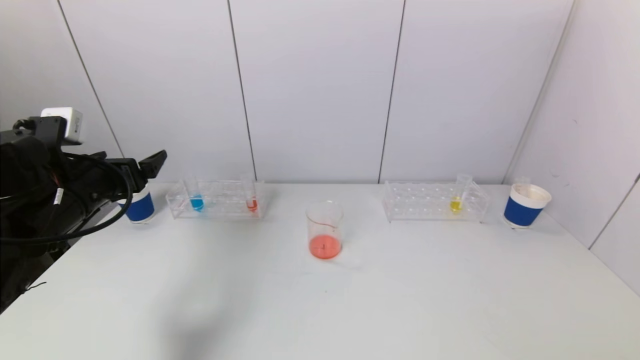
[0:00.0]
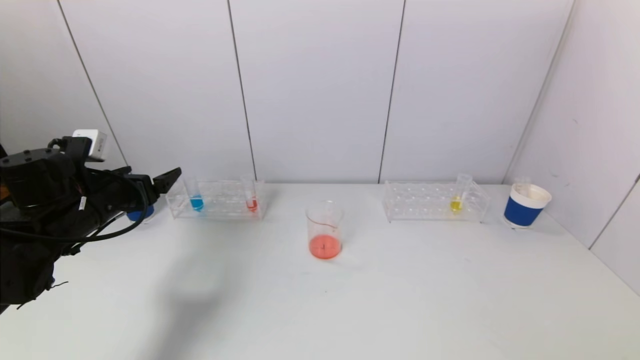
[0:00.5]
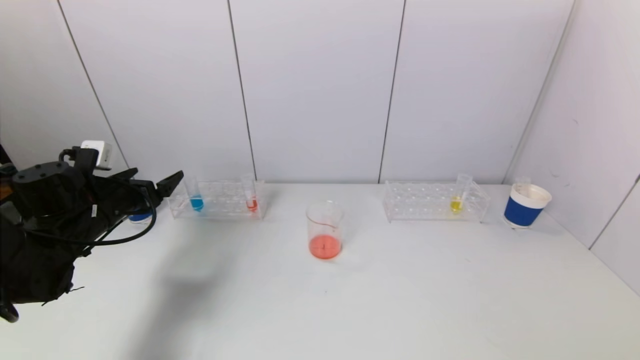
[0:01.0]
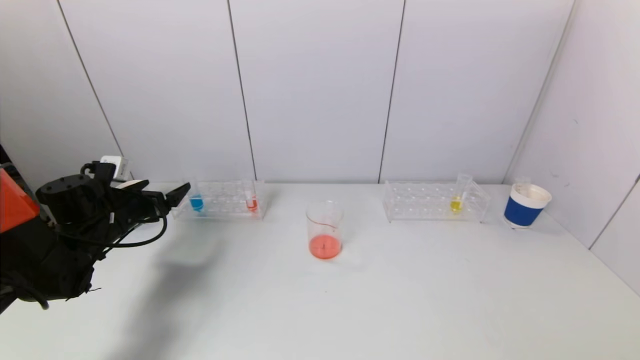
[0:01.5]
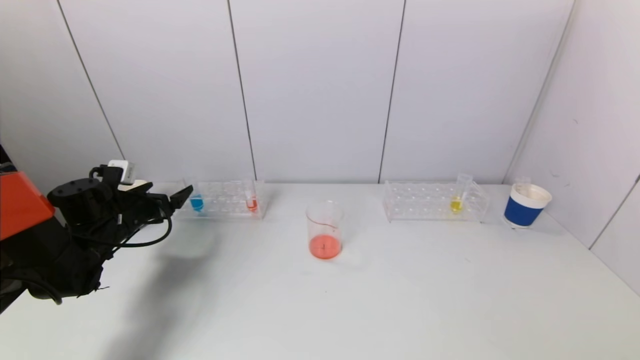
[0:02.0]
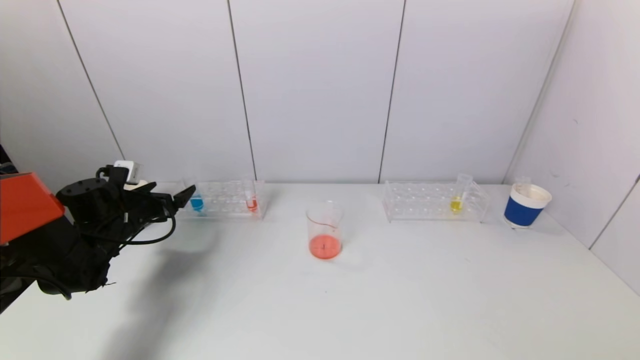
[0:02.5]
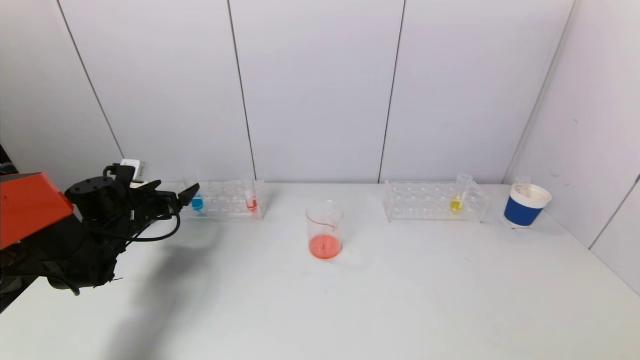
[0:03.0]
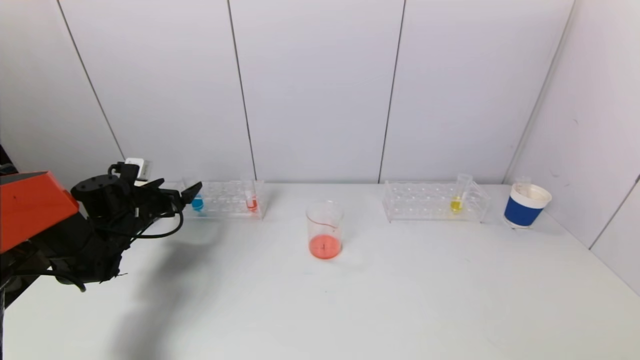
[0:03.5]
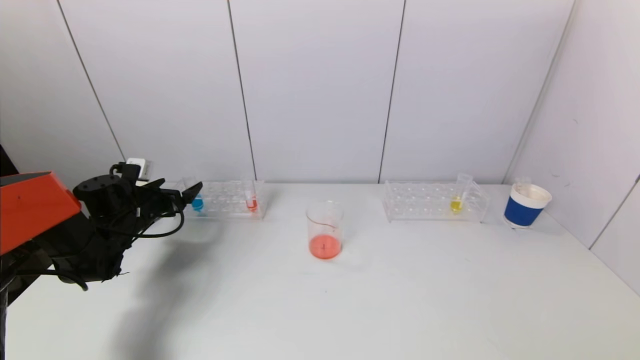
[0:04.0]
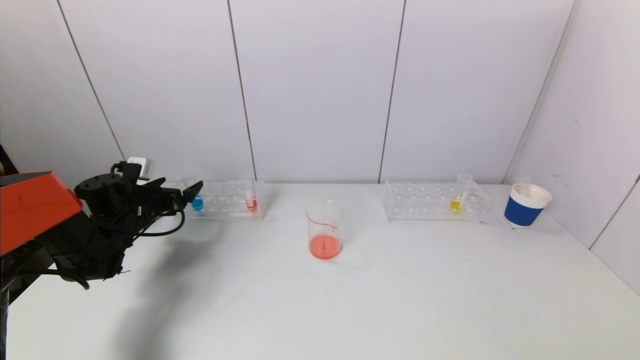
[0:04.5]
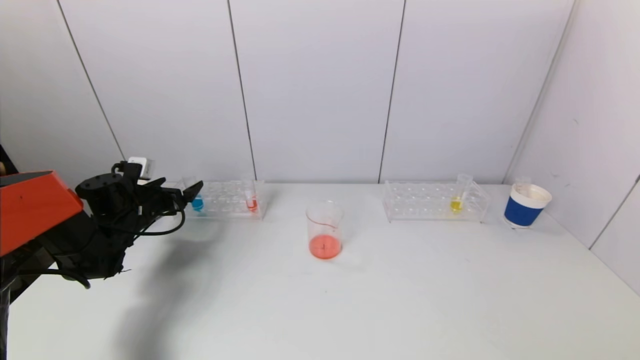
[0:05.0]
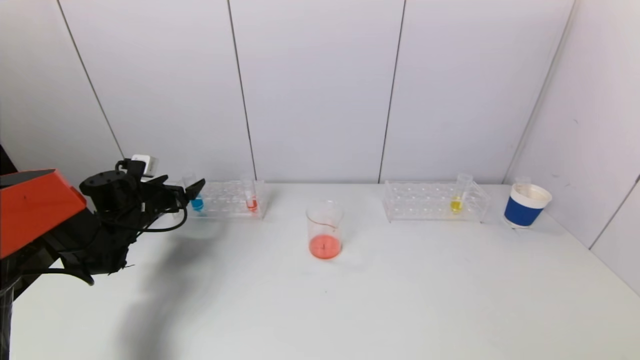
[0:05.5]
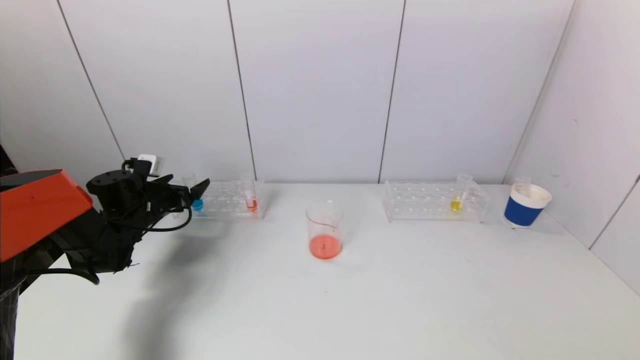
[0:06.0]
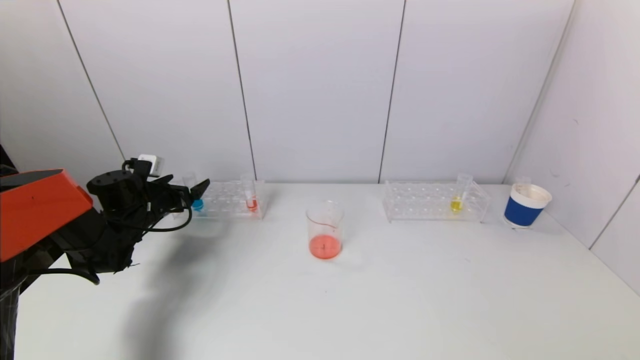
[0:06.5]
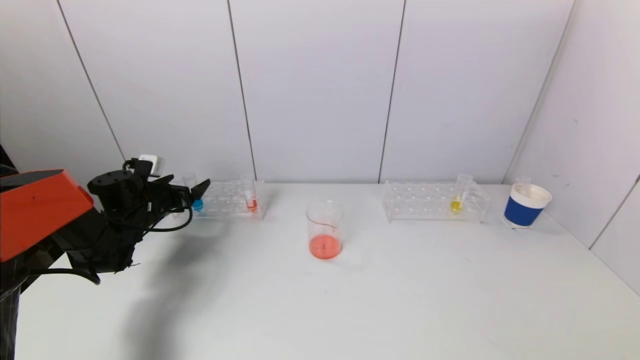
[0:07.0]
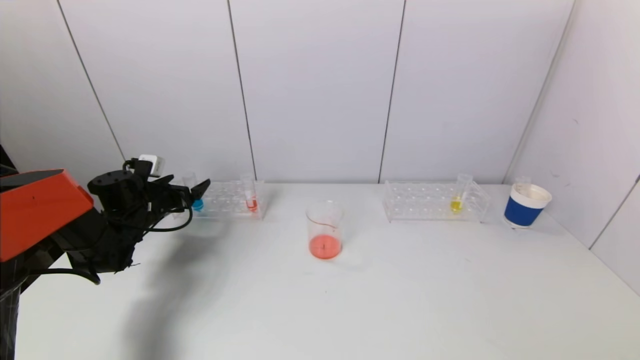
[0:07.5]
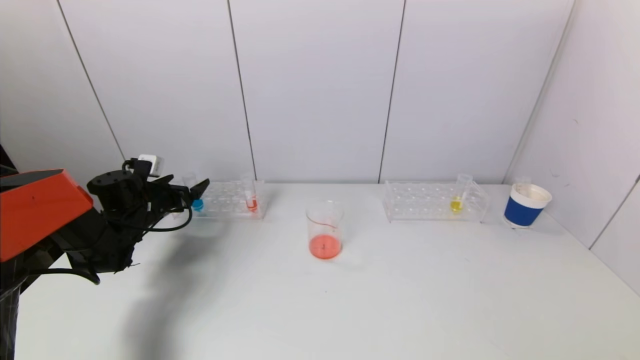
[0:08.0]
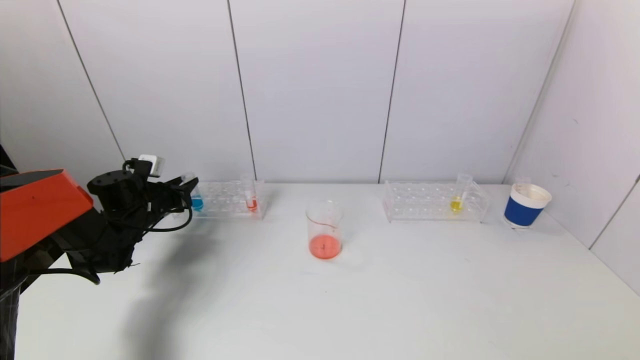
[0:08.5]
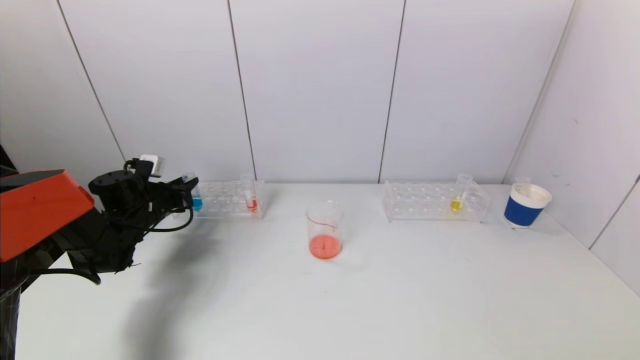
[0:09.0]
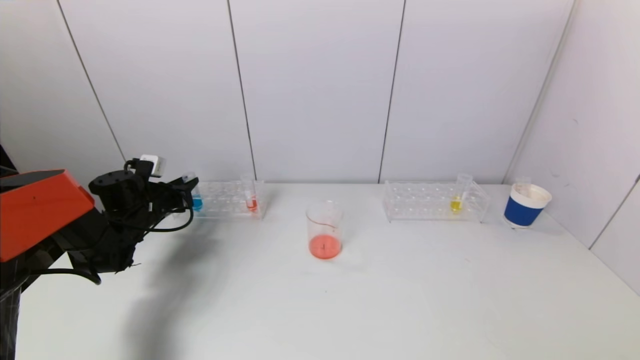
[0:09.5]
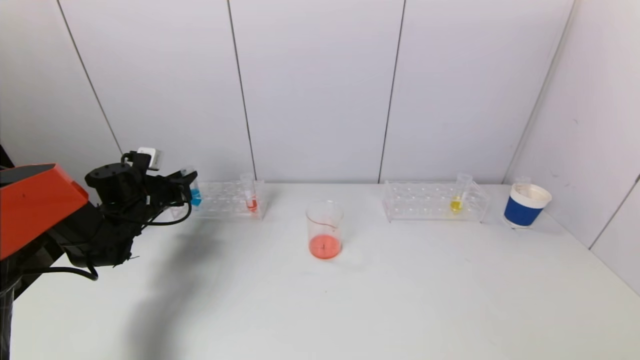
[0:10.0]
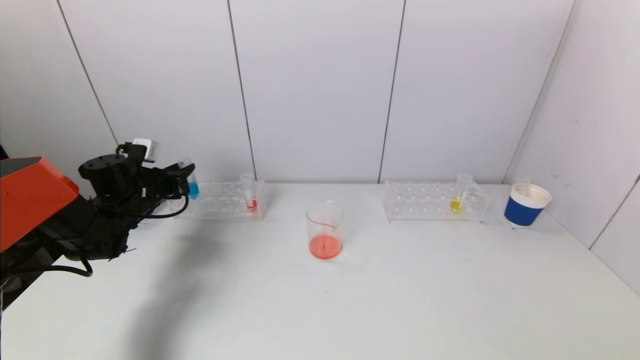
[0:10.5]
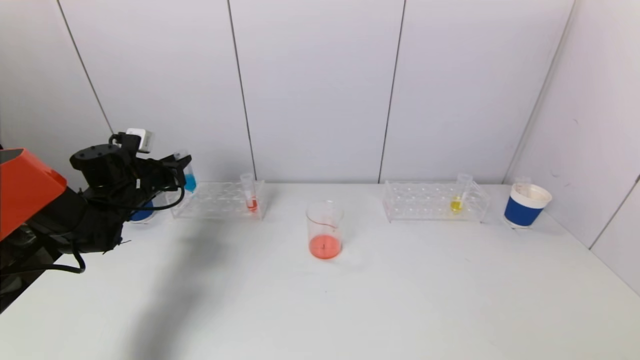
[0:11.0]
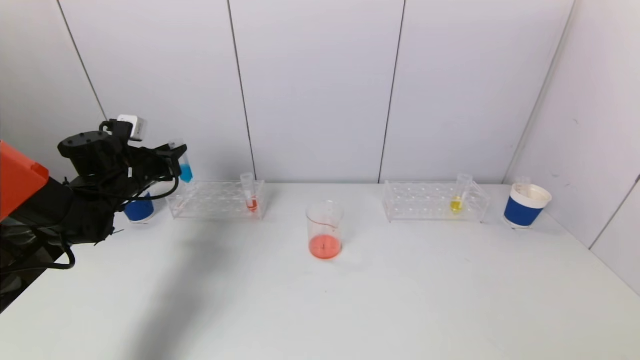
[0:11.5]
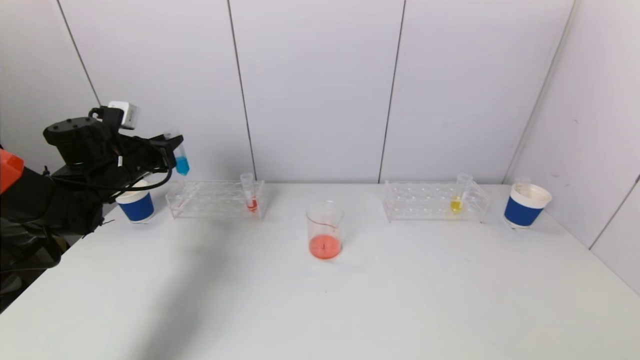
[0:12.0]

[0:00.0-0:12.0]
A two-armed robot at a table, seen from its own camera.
Task of the whole recording: pick up a test tube with pigment on left test tube rack and a test tube with pigment on right test tube rack by grippers and pour them into the beaker.
Step, 0:00.0 to 0:08.5: Grasp the blue reagent with the left gripper.
0:00.0 to 0:02.0: The left gripper heads downward and forward, covering roughly 15 cm.
0:02.0 to 0:06.0: The grippers make only small movements.
0:06.0 to 0:08.0: Both grippers stay put.
0:08.0 to 0:10.0: The left gripper closes.
0:10.0 to 0:12.0: The left gripper travels upward by roughly 10 cm.

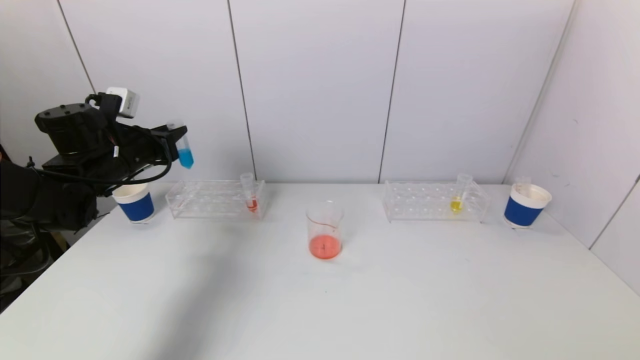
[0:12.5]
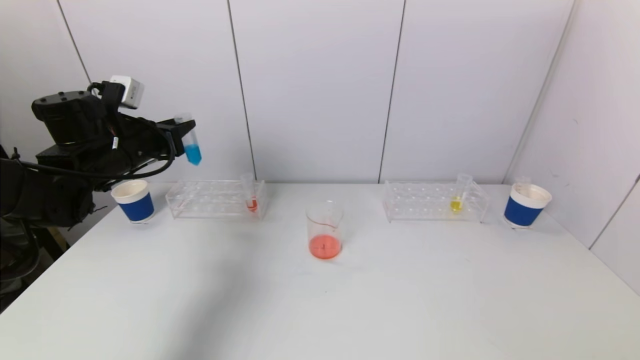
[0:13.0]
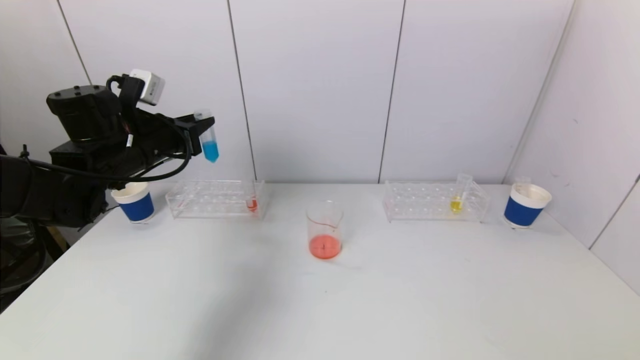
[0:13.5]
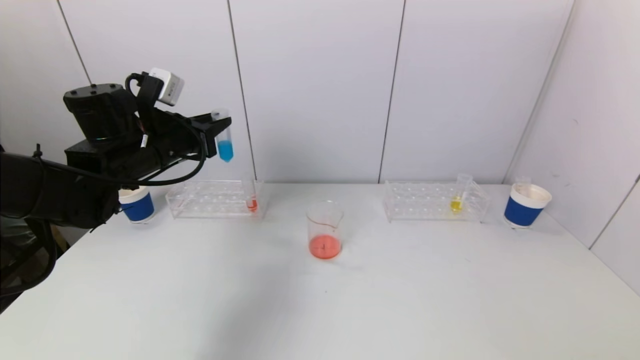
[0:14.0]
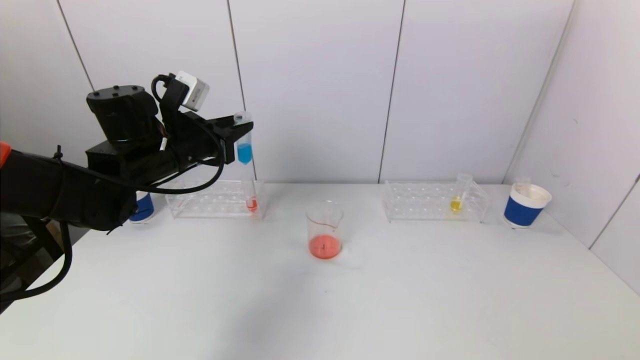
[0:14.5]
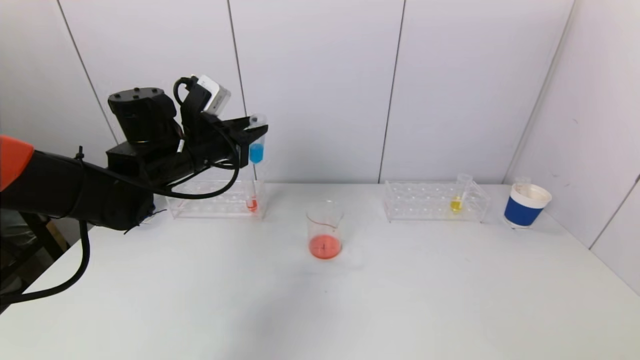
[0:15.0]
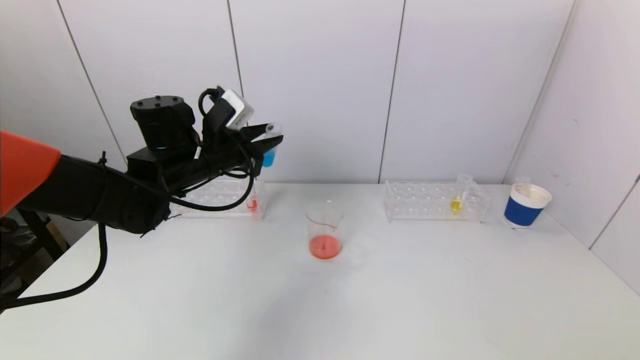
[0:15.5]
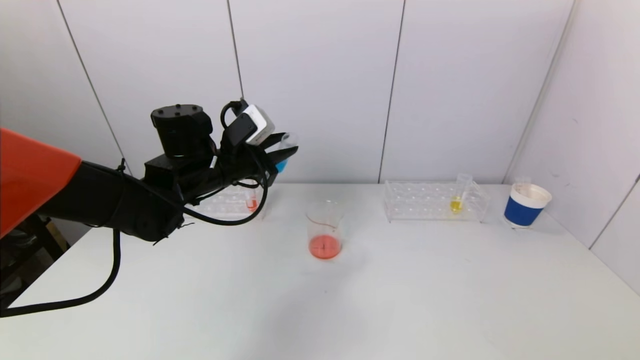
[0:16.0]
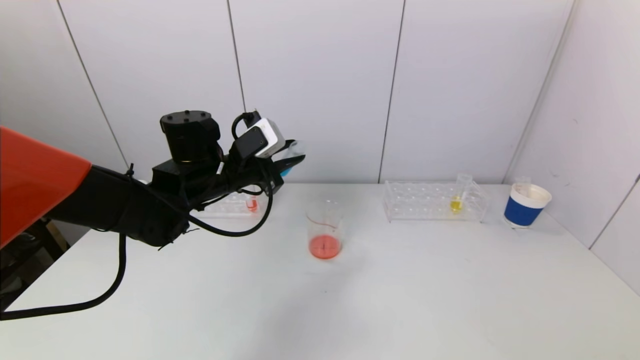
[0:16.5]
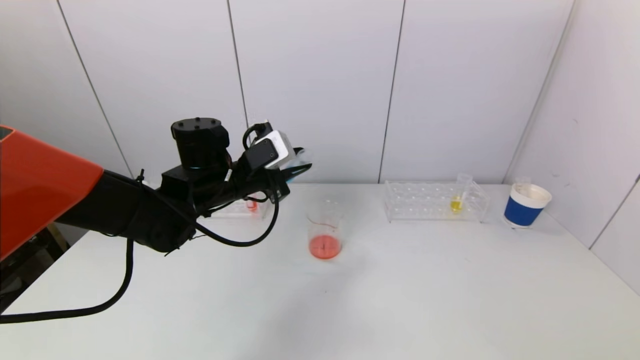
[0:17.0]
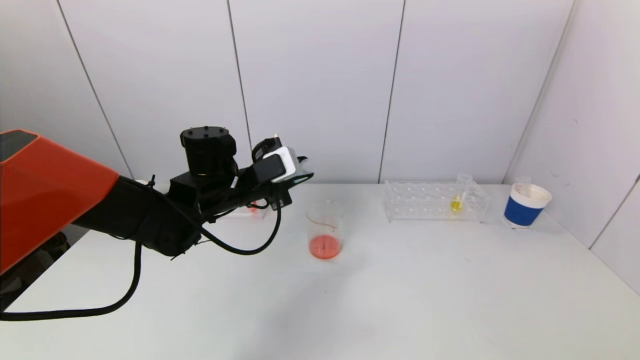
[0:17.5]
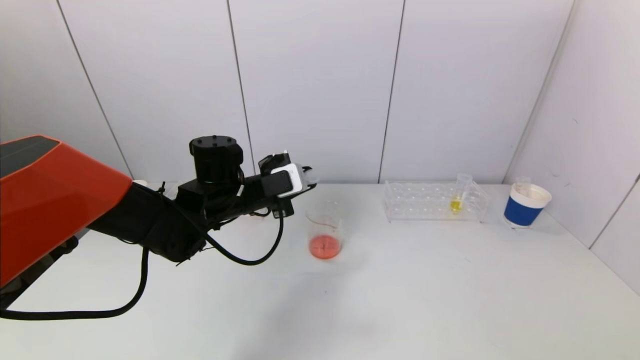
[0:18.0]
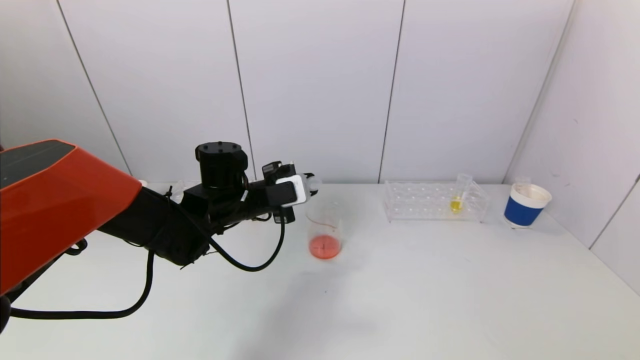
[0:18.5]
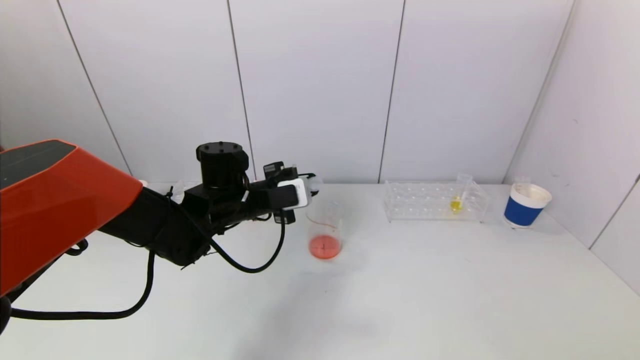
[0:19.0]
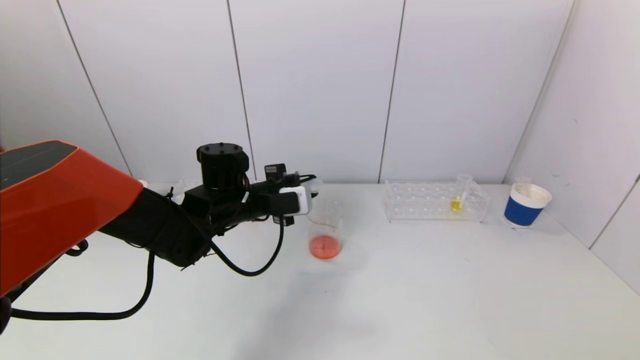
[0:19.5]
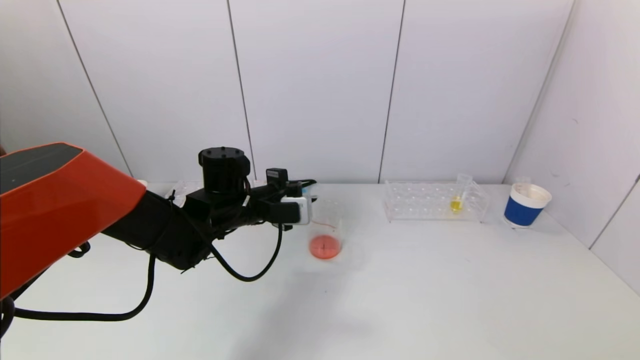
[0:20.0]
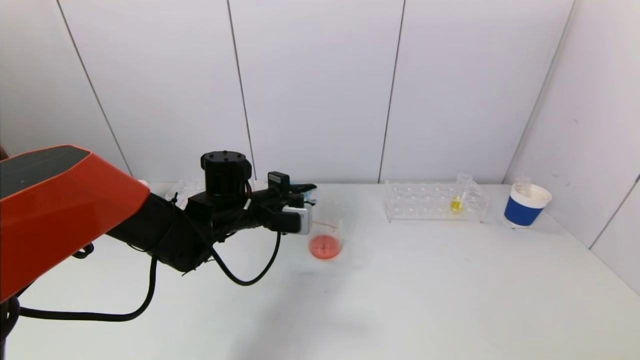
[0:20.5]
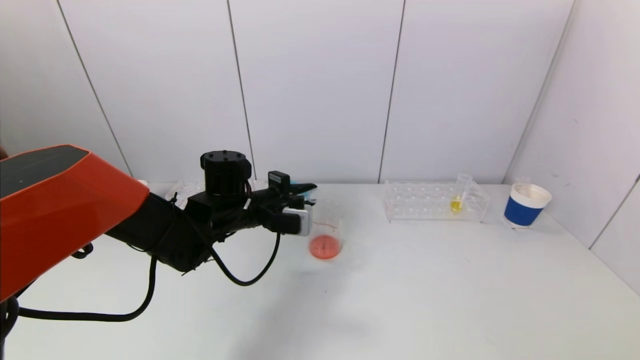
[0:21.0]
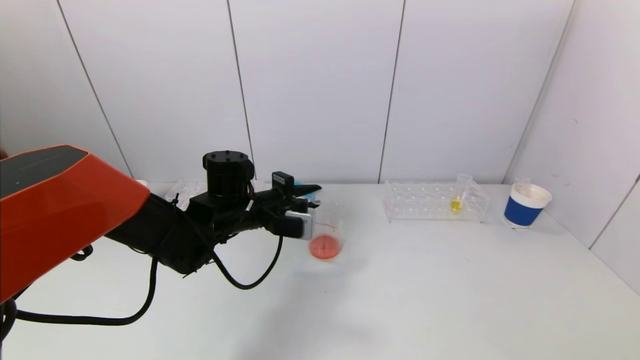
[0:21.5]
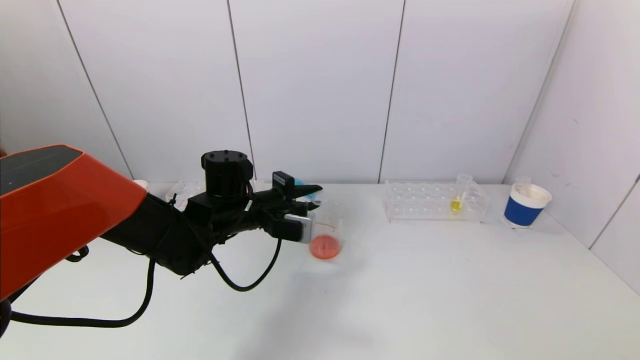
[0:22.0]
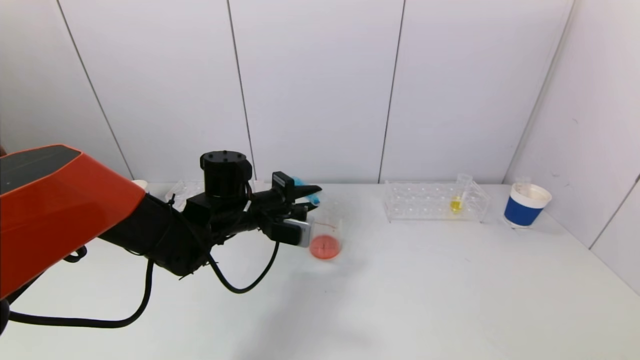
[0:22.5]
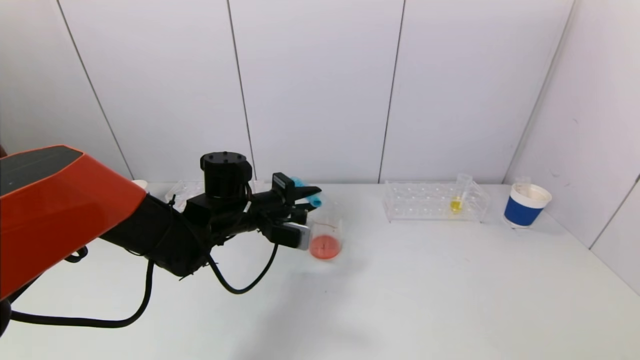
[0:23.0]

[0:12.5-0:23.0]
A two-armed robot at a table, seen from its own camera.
Task of the whole recording: pick up a test tube with pigment on left test tube rack and a test tube with pigment on right test tube rack by grippers and pour them into the beaker.
0:12.5 to 0:14.5: The left gripper travels to the right by about 10 cm.
0:14.5 to 0:16.5: The left gripper is displaced to the right by roughly 5 cm.
0:16.5 to 0:19.0: The left gripper changes place by approximately 5 cm.
0:19.0 to 0:21.0: There are only small adjustments of the grippers.
0:21.0 to 0:23.0: There are only small adjustments of the grippers.
